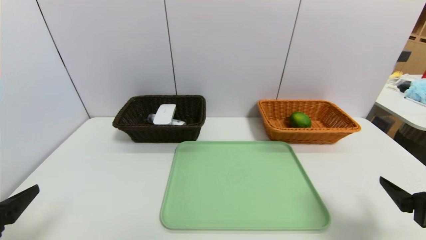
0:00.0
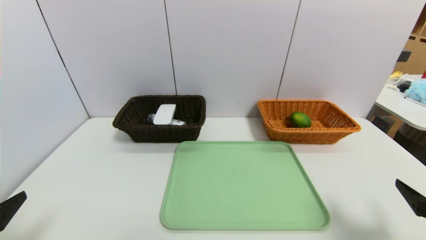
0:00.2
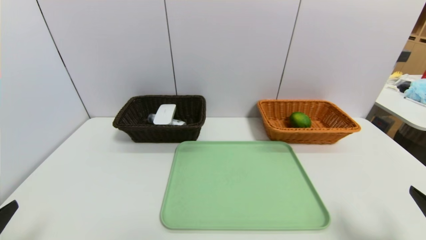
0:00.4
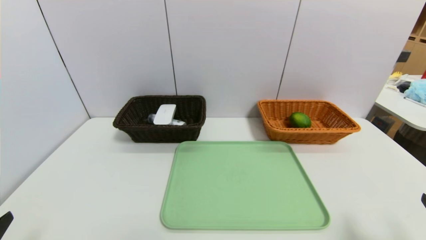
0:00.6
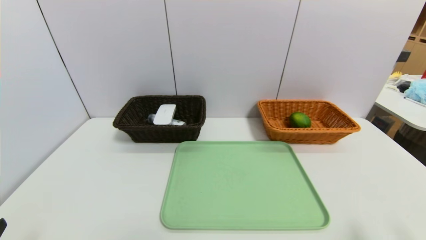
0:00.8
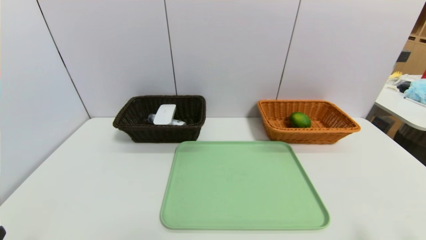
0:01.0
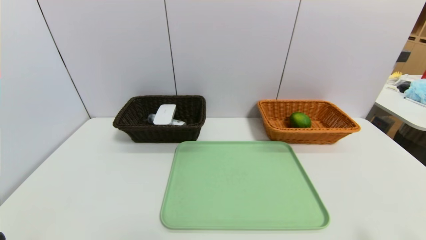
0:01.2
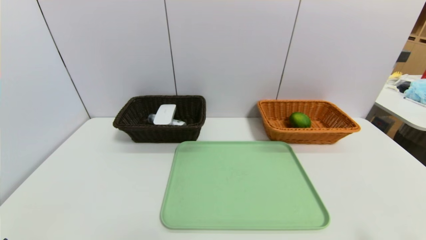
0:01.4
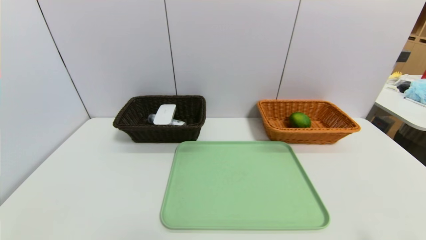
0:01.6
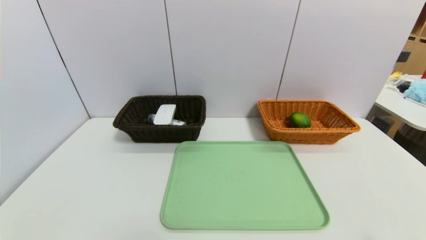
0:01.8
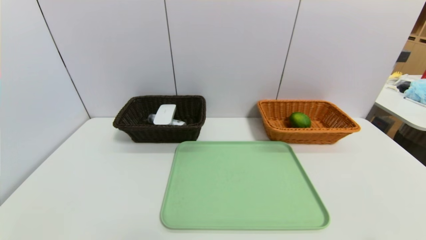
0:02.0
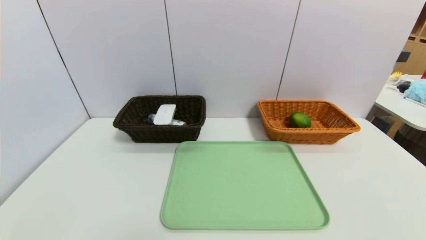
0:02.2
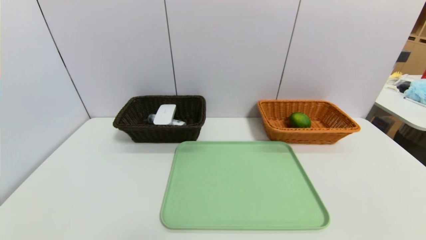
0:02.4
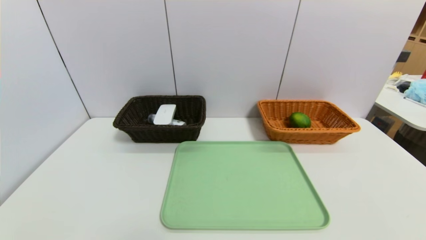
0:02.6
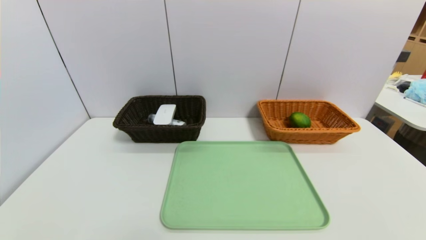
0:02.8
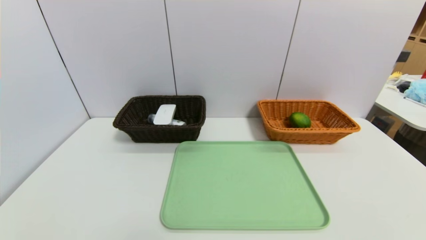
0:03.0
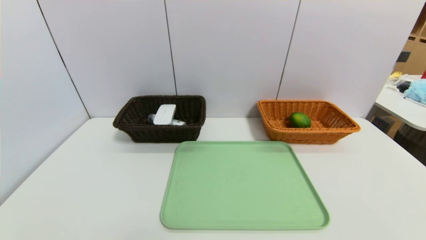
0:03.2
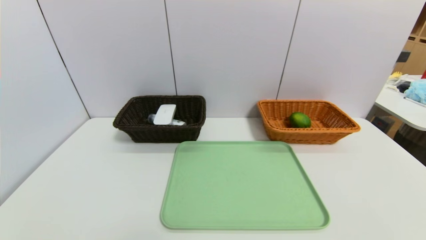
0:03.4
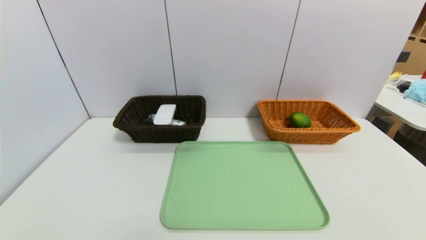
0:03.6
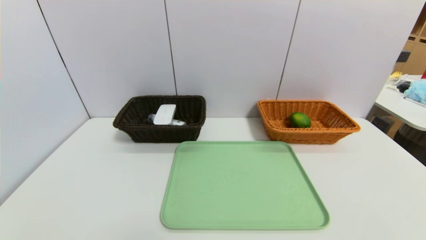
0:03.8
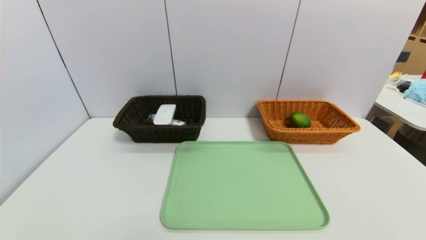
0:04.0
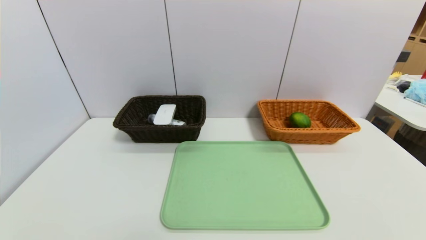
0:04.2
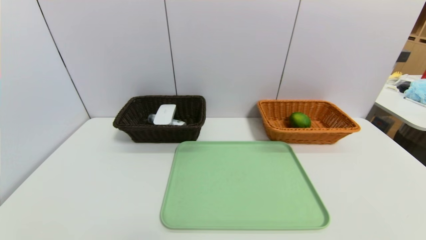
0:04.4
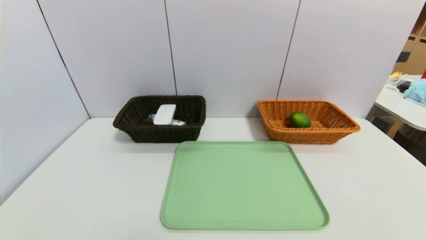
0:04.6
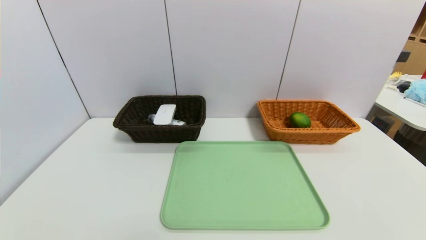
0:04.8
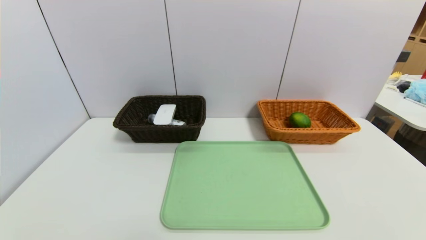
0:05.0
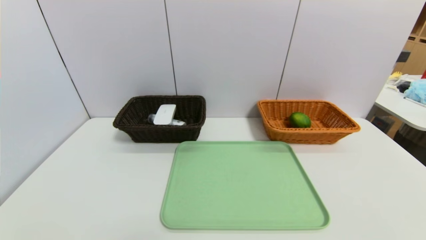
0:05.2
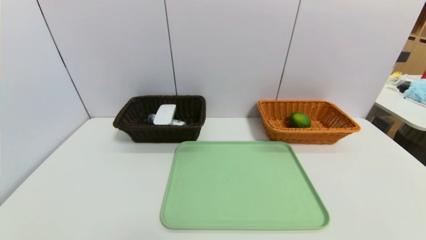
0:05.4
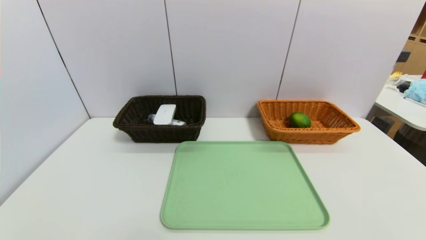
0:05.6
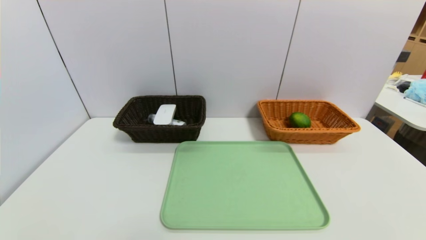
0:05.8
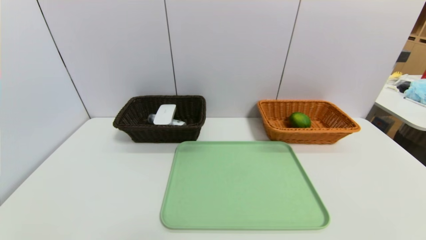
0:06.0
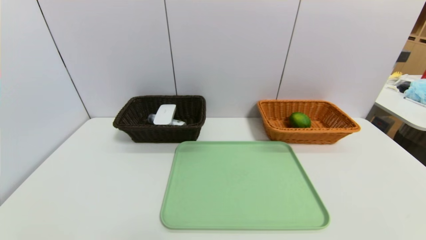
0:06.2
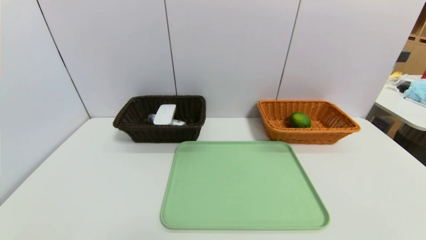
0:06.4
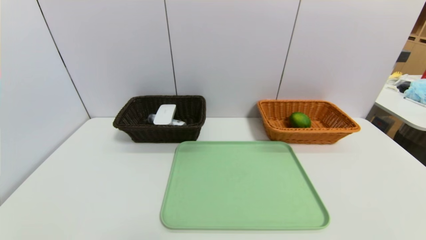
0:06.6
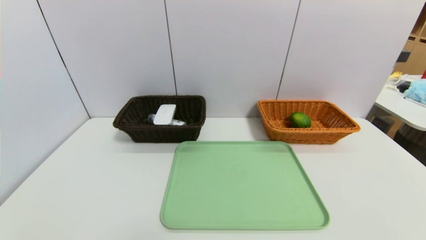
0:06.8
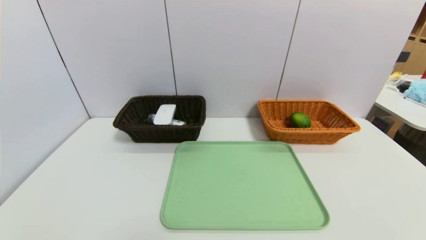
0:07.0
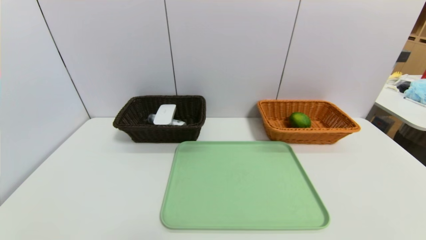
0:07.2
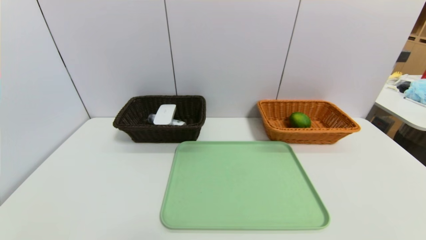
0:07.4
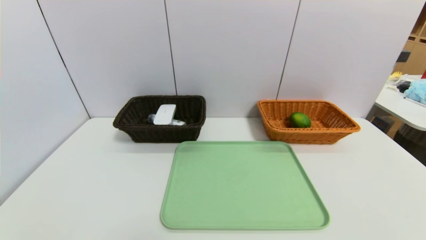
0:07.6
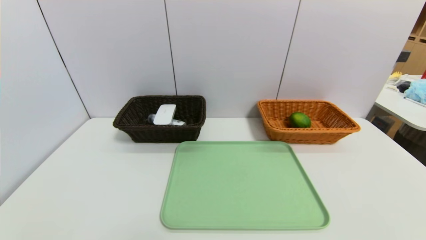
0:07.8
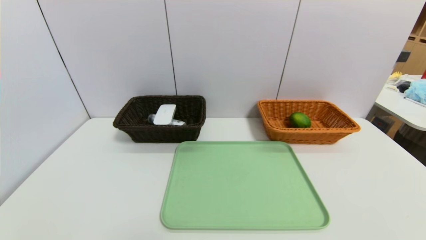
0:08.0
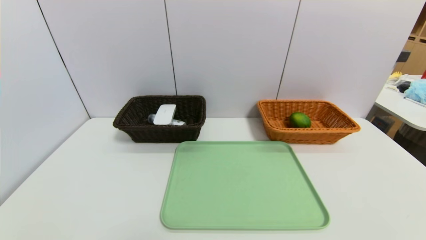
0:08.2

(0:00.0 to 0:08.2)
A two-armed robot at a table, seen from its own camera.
Task of the whole recording: place the food in the right basket with the right gripper, and place the non food items in the left basket with the left gripper.
0:00.0 - 0:01.6: The left gripper heads downward and backward, covering approximately 10 cm. The right gripper is displaced backward by some 10 cm.
0:06.6 - 0:08.2: The two grippers keep their place.
